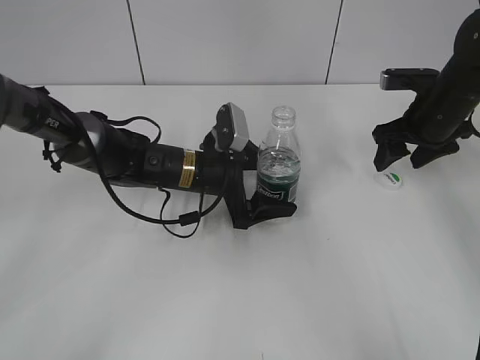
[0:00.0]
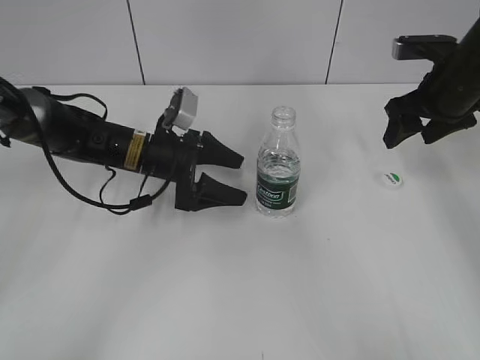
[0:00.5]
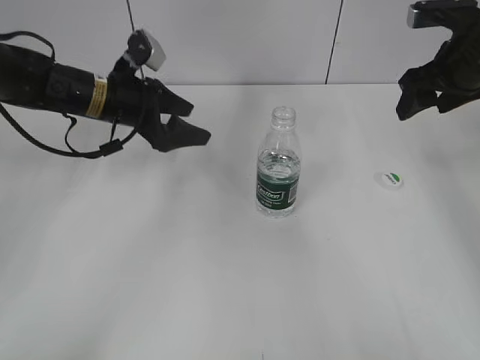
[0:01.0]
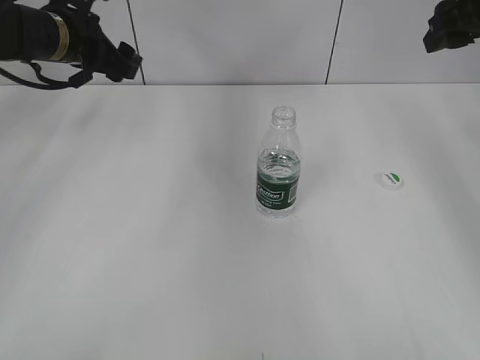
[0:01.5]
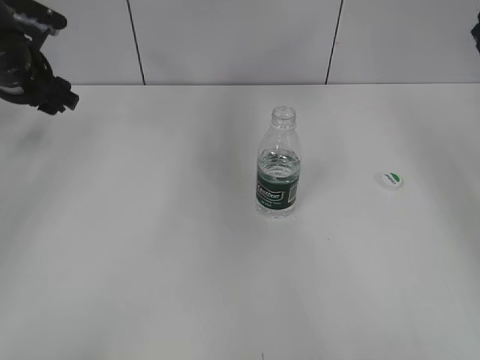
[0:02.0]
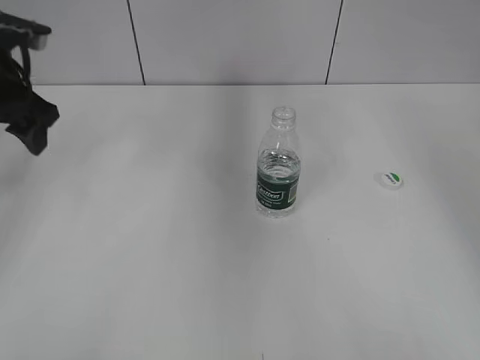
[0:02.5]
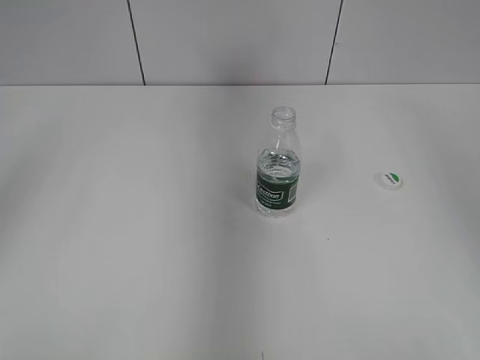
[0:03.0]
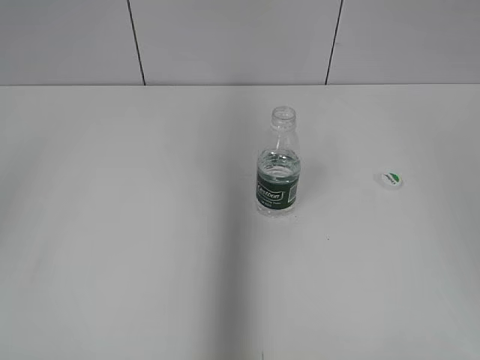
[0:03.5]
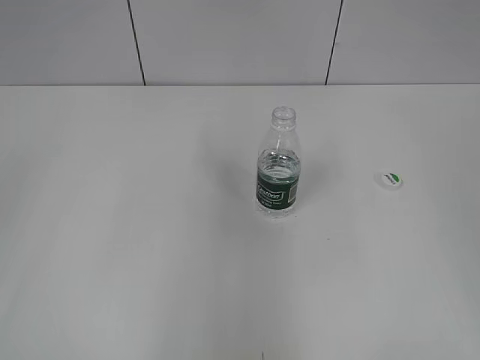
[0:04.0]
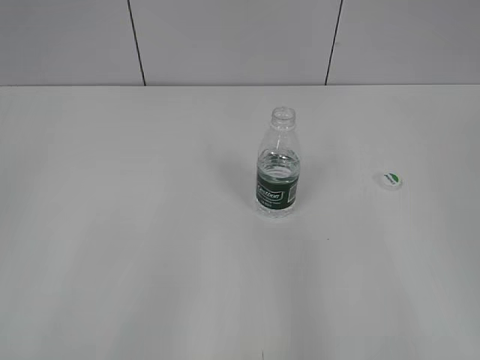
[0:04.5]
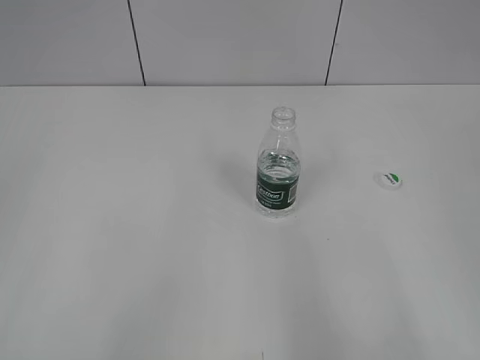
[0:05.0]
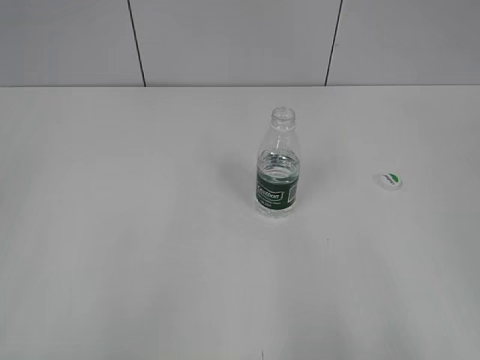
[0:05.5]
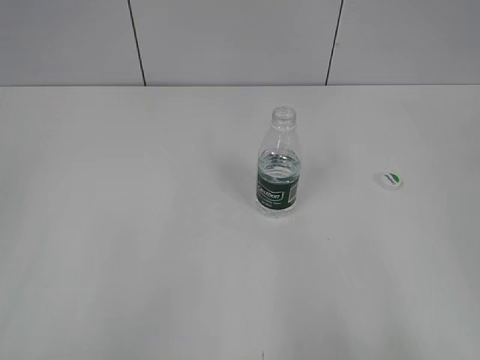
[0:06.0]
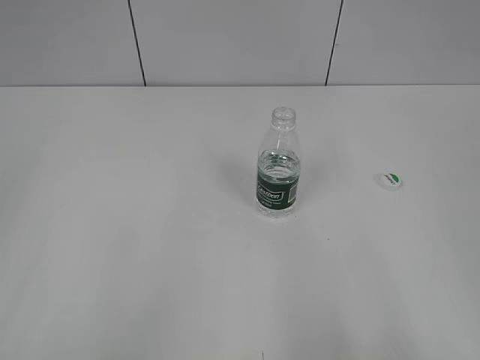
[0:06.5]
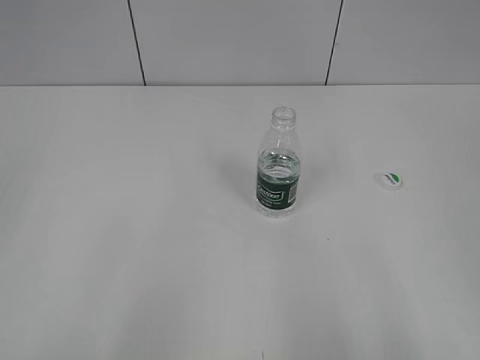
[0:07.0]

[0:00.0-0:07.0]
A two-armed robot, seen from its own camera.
0:00.0 to 0:02.0: The right gripper moves upward, about 15 cm; the left gripper goes about 25 cm to the left and upward.
0:02.0 to 0:03.5: The left gripper heads backward and upward, covering some 30 cm. Meanwhile the right gripper goes about 20 cm backward.
0:03.5 to 0:05.0: Both grippers move backward and downward, approximately 20 cm. The left gripper closes its fingers.
